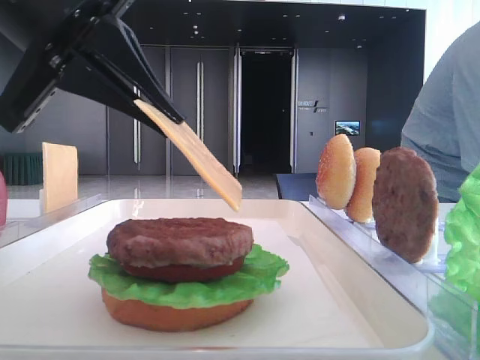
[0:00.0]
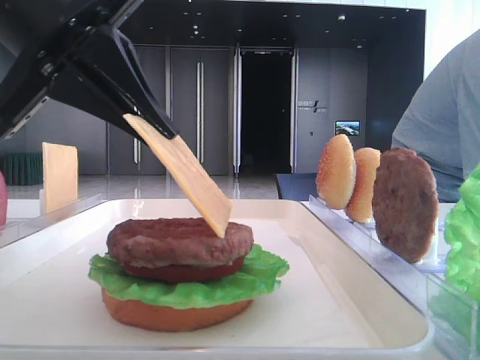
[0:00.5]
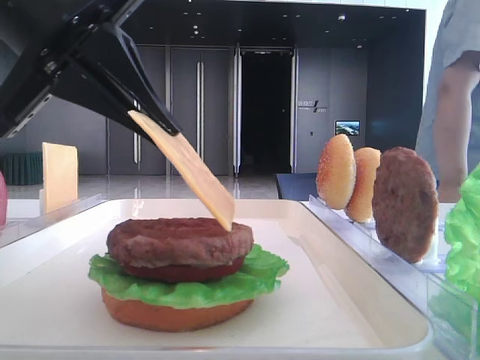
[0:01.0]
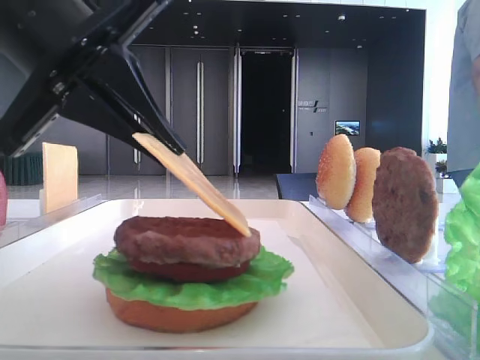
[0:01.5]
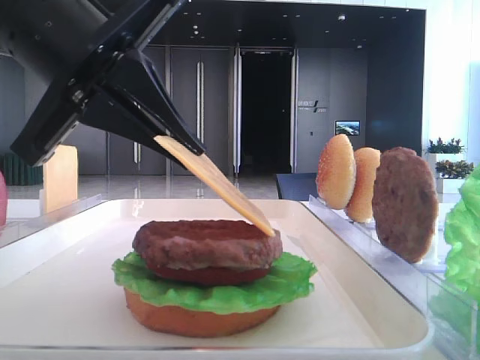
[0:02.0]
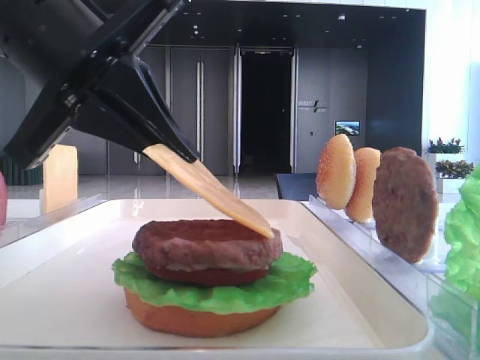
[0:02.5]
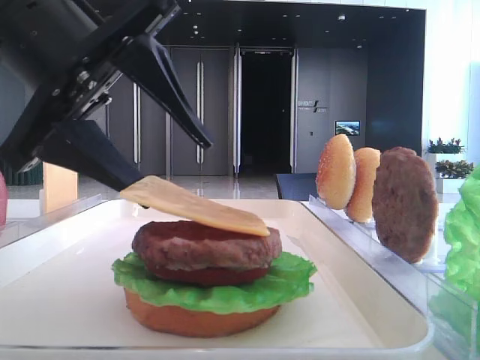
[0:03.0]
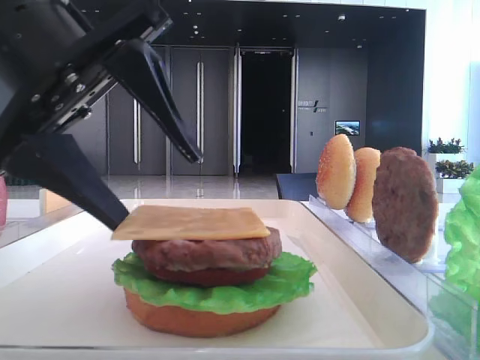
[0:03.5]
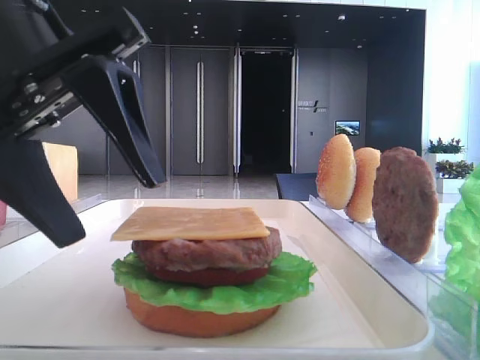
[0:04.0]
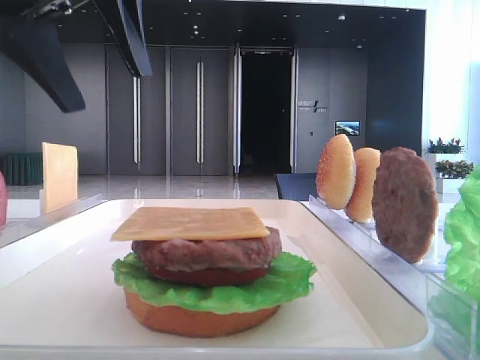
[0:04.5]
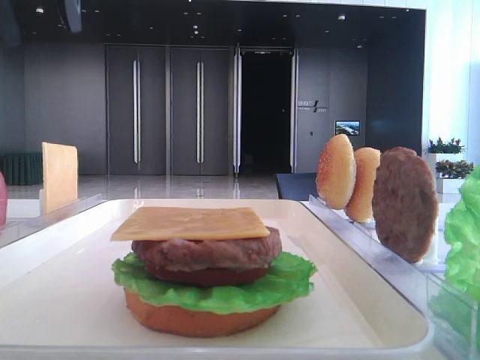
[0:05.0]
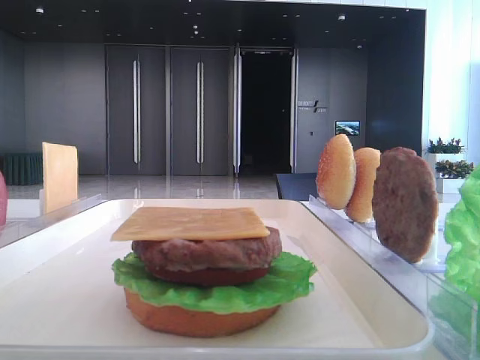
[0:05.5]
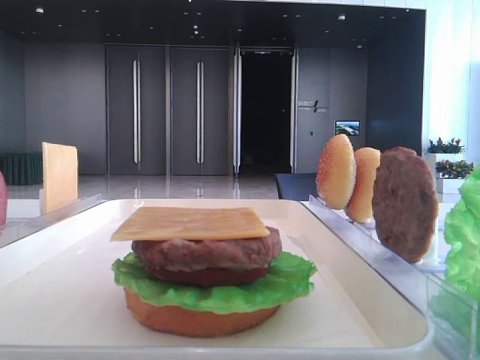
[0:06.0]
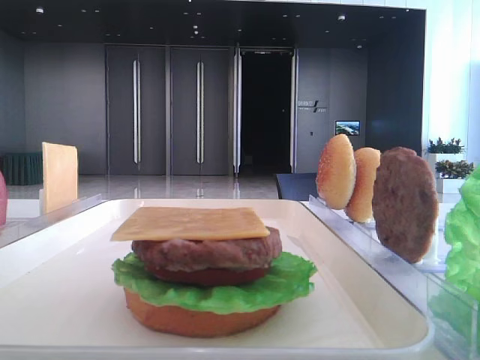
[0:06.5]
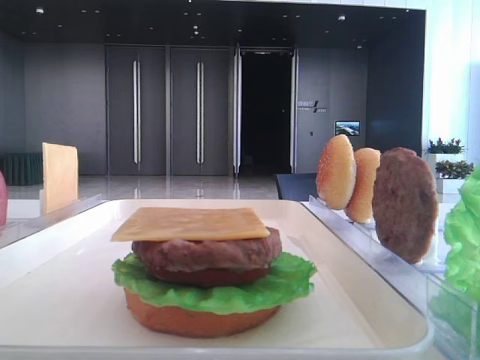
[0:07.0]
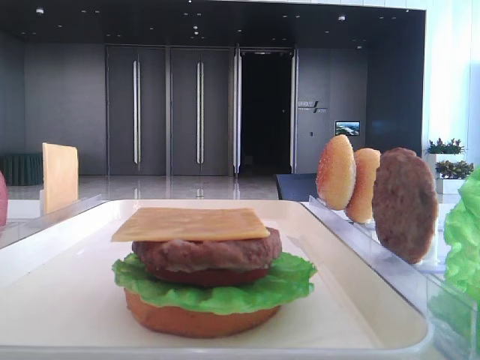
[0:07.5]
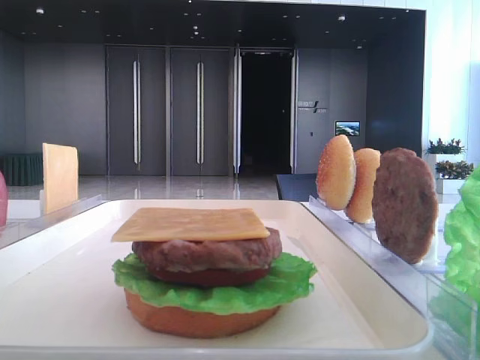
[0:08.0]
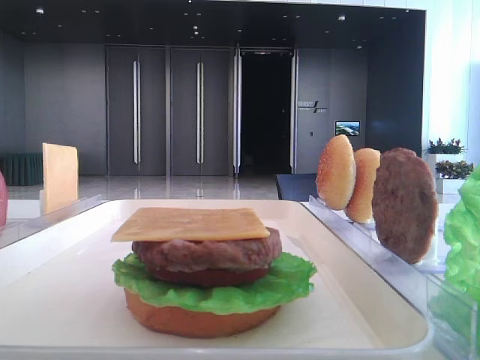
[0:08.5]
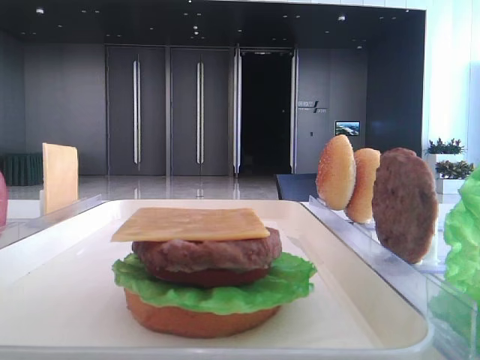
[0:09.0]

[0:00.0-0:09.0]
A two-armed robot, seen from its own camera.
Step, 0:00.0 to 0:03.5: Place the cheese slice on the patty with the left hand.
0:02.0 to 0:04.5: The left gripper travels upward by roughly 10 cm, and opens up.
0:04.5 to 0:07.0: The left gripper goes approximately 30 cm to the left, upward and backward.

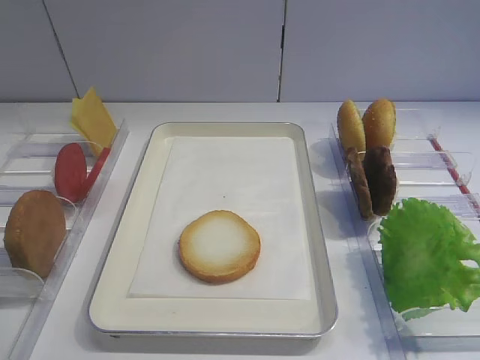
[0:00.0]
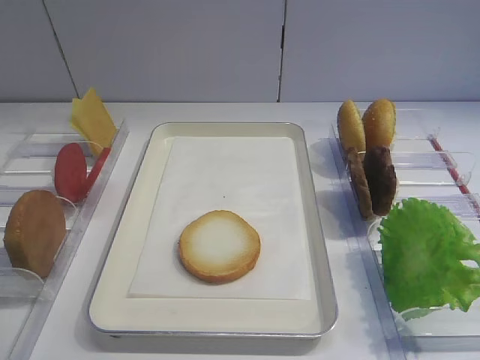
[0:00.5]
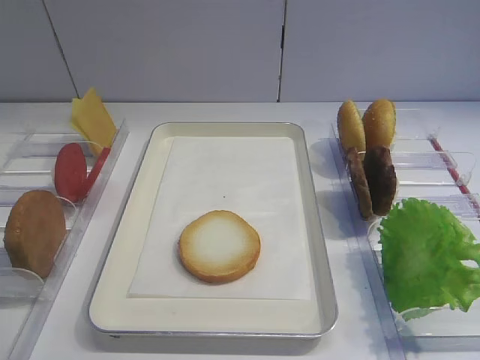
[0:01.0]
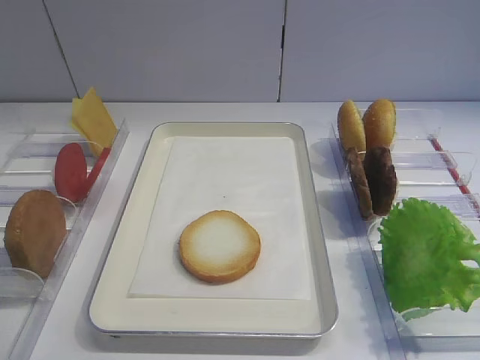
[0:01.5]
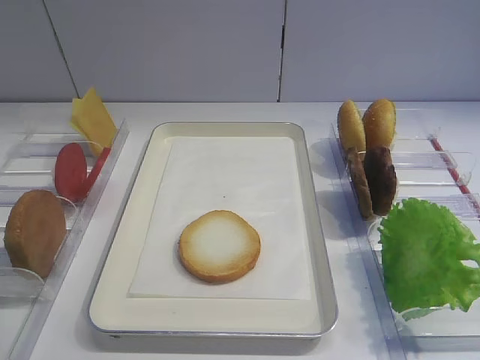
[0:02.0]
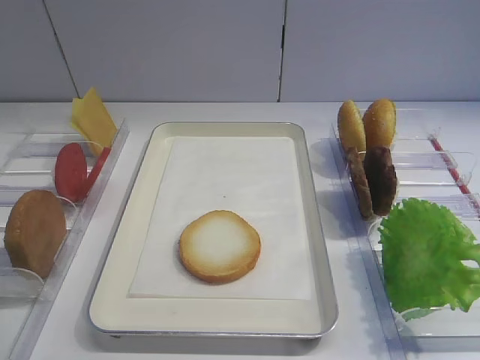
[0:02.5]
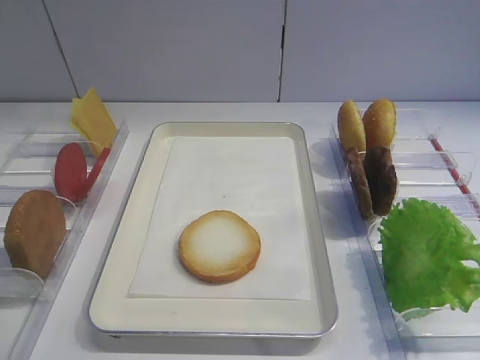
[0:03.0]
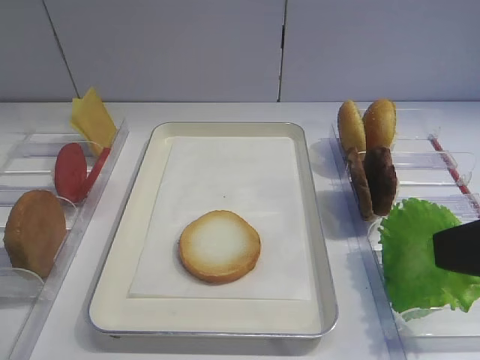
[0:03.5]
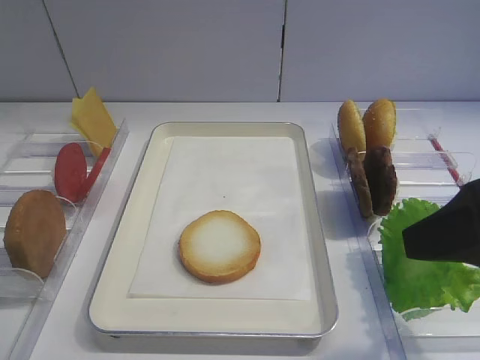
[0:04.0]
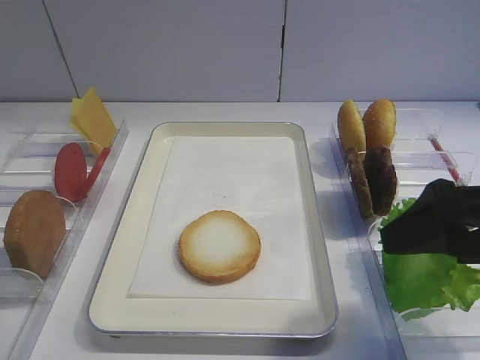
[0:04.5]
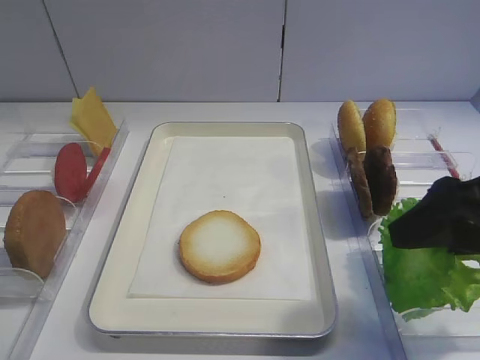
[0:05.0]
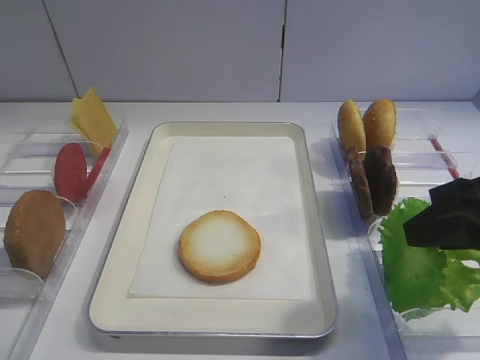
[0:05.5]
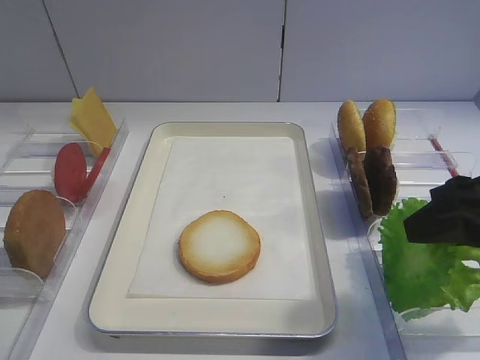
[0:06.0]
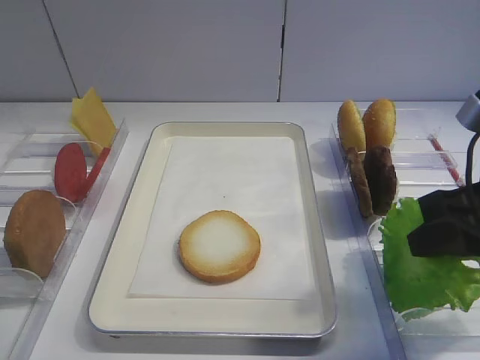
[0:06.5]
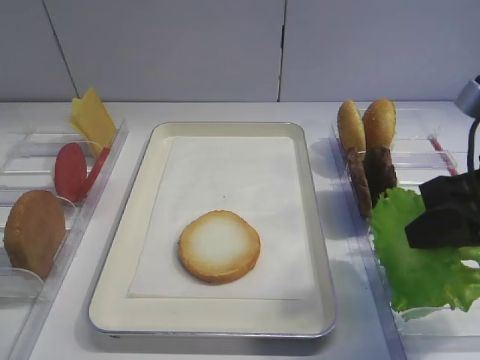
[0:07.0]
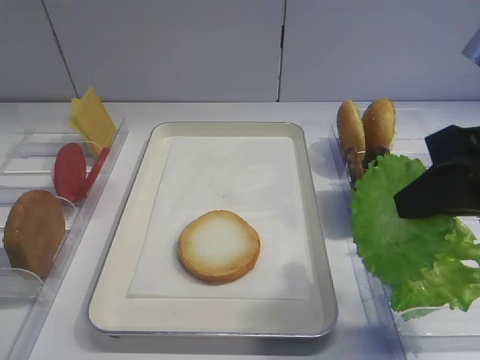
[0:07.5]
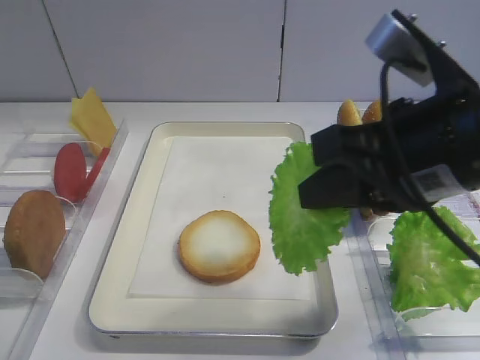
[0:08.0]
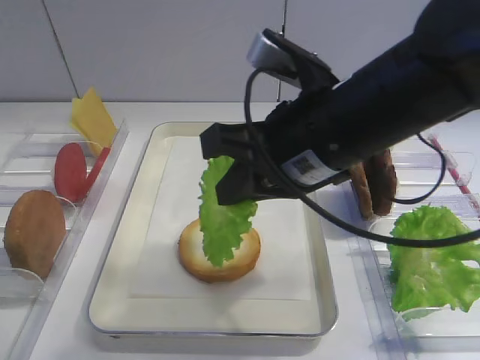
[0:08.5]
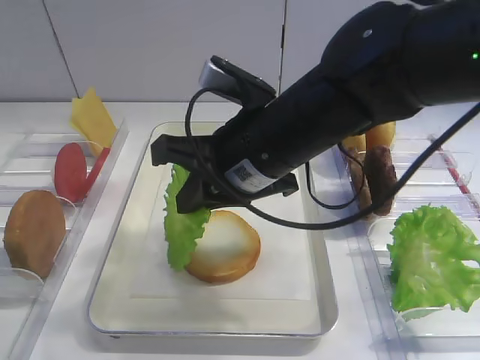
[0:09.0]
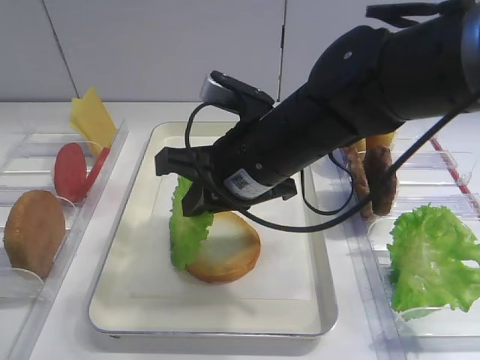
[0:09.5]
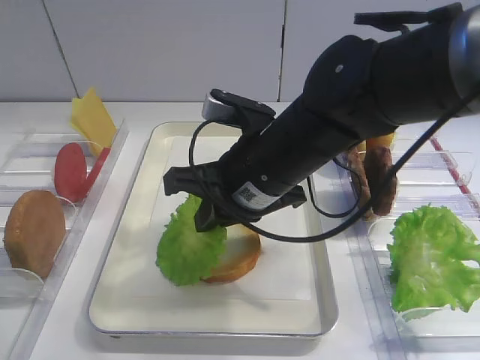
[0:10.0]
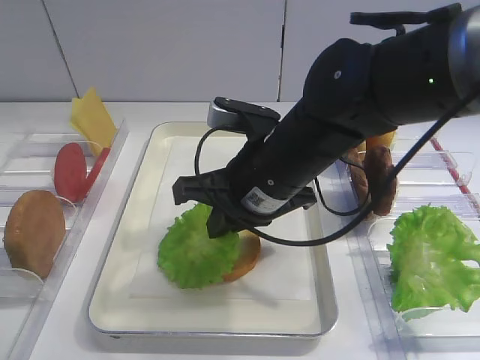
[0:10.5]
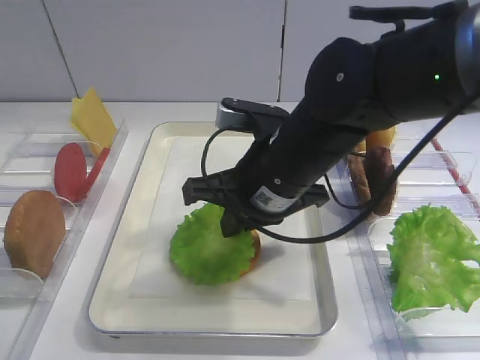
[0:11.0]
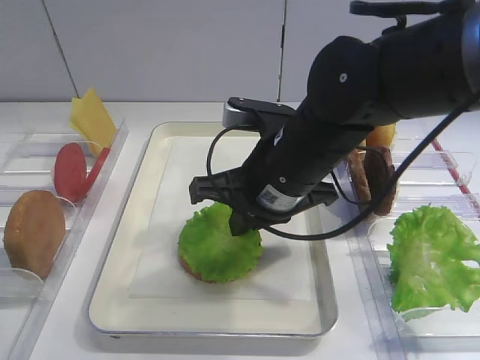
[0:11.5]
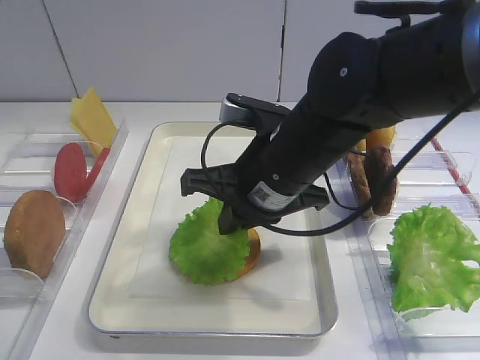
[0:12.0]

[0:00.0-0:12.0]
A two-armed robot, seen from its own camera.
Step, 0:00.0 to 0:07.5: Pick up the lettuce leaf with the right gripper.
0:02.0 to 0:04.0: The right gripper shifts approximately 15 cm forward.
0:04.0 to 0:06.0: The right gripper ends up roughly 5 cm from where it was, and closes up.
0:06.0 to 0:08.0: The right gripper moves to the left, about 10 cm, and closes its fingers.
0:08.0 to 0:10.0: The right gripper moves to the left, forward and downward, roughly 15 cm.
0:10.0 to 0:12.0: The grippers move only a little.

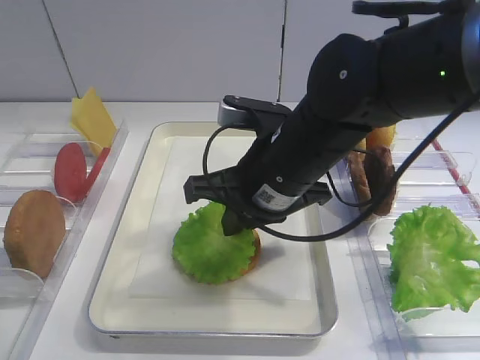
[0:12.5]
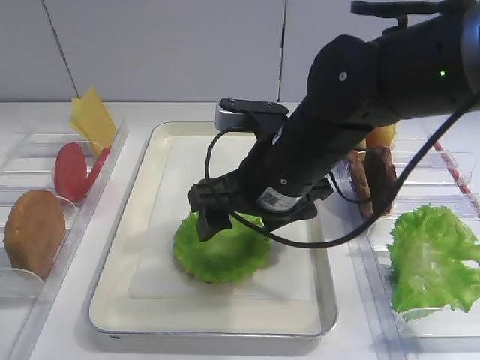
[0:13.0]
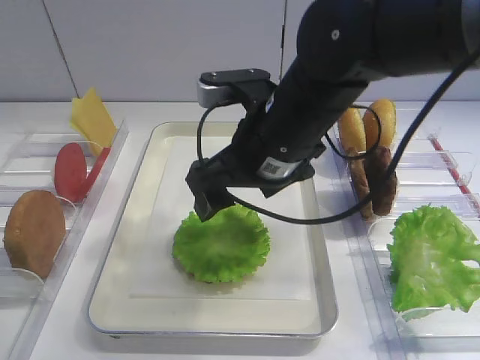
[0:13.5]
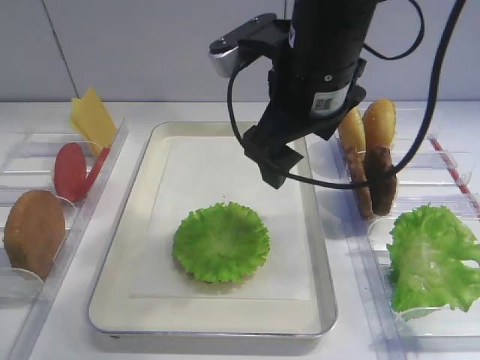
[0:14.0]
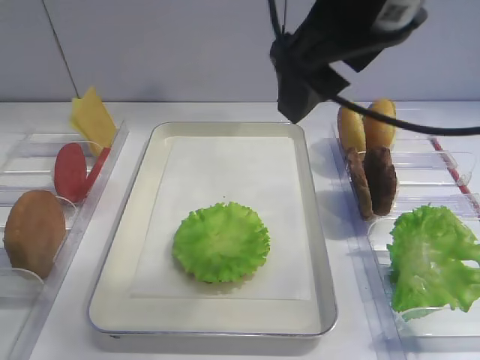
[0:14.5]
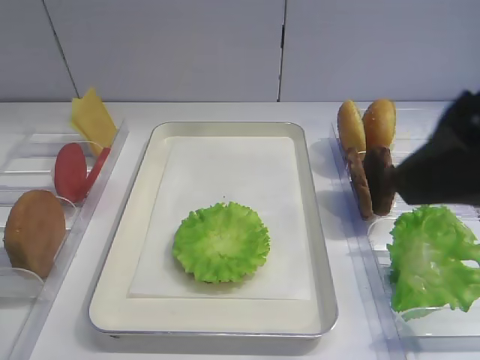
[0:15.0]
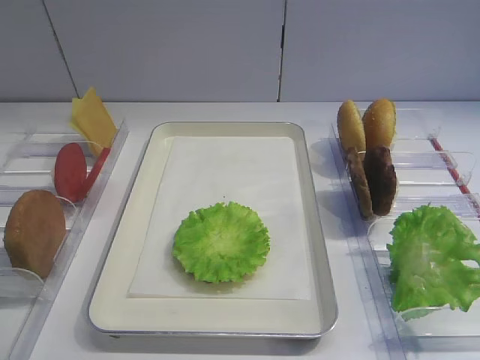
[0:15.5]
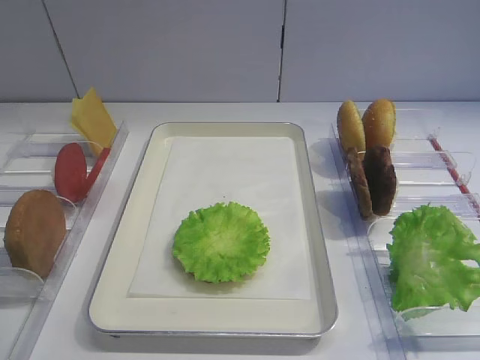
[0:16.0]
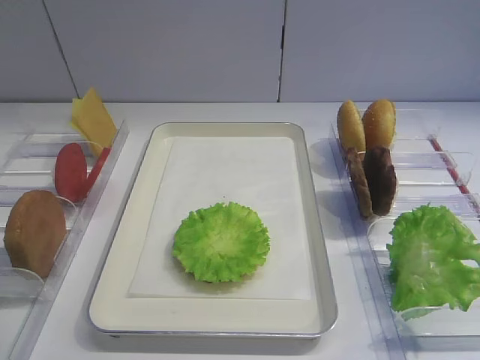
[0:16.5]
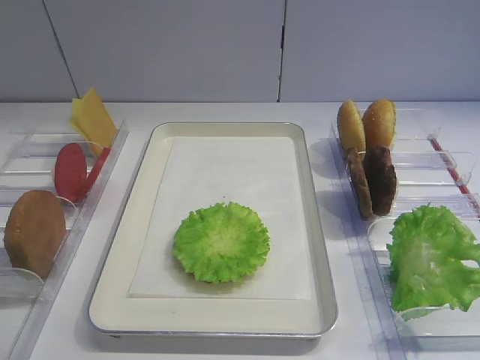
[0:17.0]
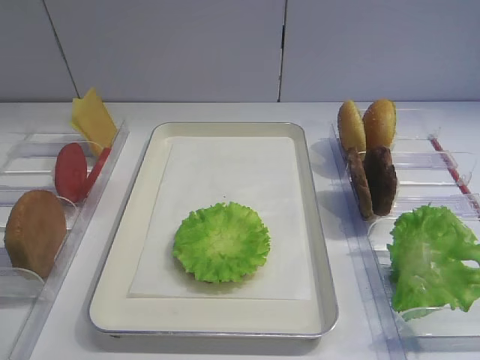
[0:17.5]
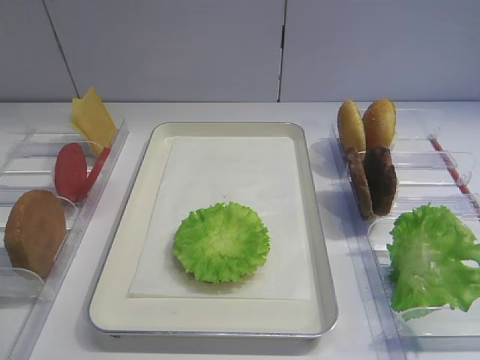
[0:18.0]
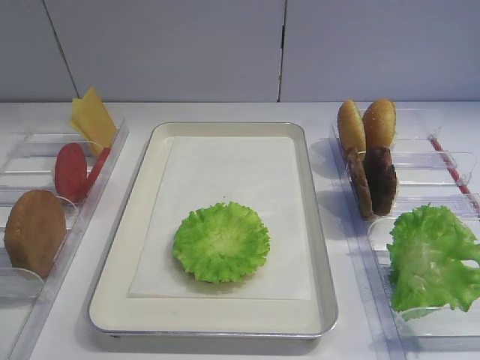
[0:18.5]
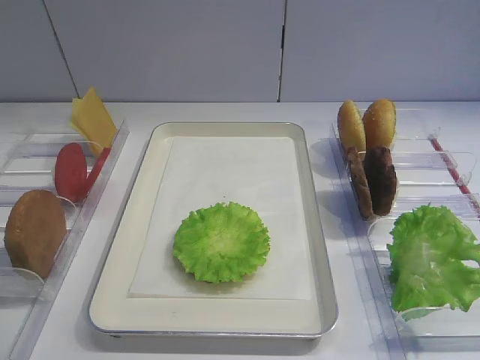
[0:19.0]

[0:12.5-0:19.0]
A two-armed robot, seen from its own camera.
0:12.5 to 0:14.5: The right gripper shifts roughly 20 cm upward, and opens up.
0:14.5 to 0:17.0: The right gripper goes about 30 cm backward, to the right and downward.
0:17.0 to 0:19.0: Both grippers stay put.
